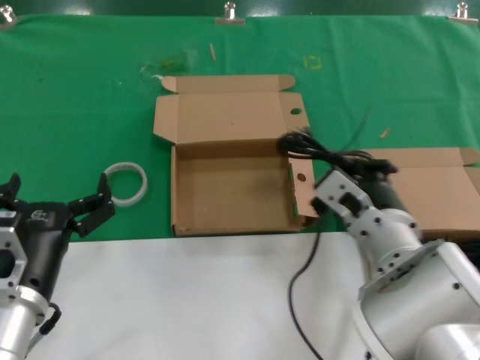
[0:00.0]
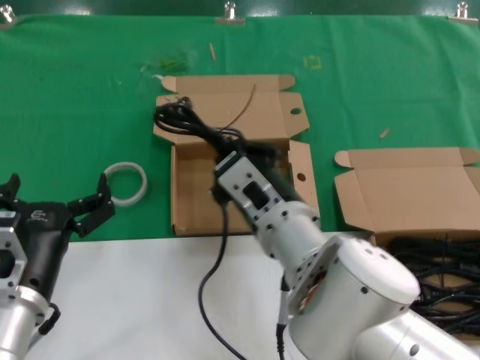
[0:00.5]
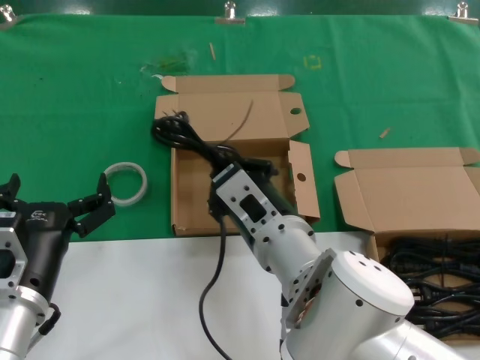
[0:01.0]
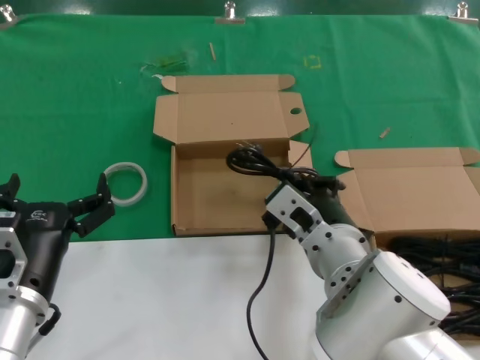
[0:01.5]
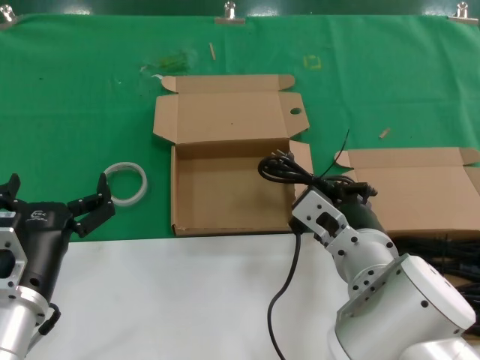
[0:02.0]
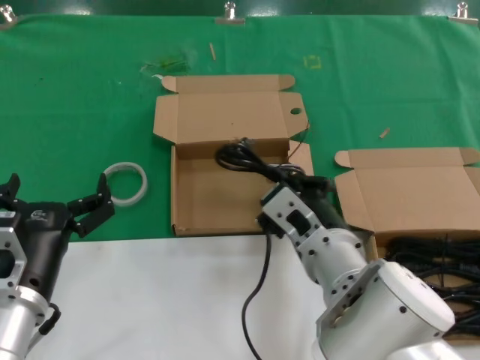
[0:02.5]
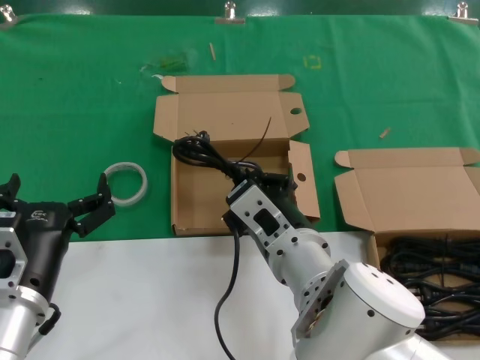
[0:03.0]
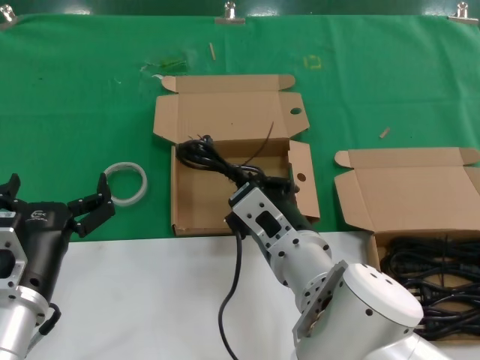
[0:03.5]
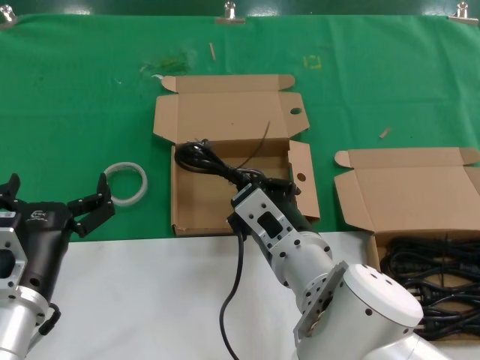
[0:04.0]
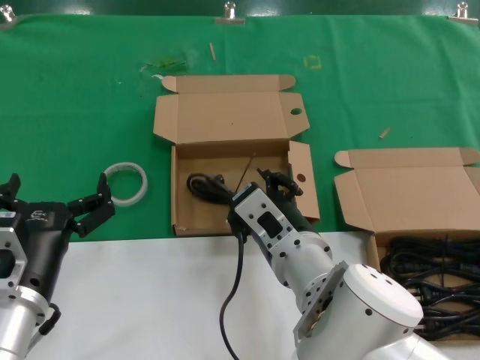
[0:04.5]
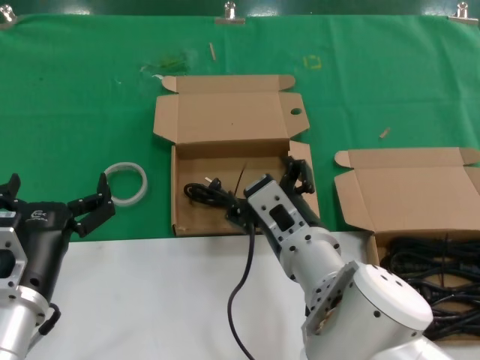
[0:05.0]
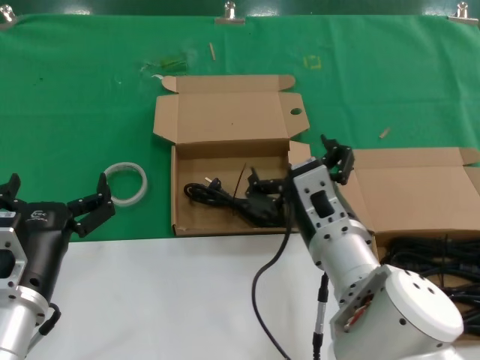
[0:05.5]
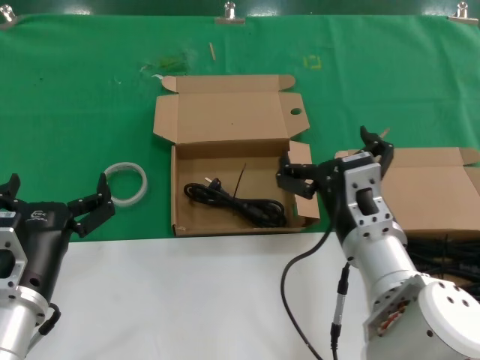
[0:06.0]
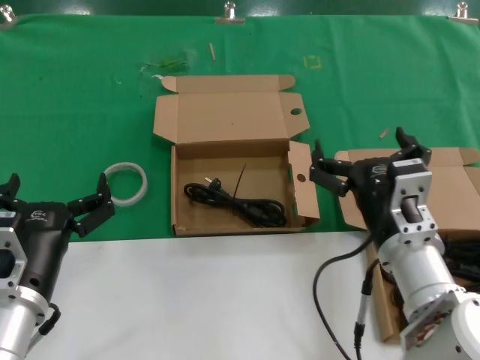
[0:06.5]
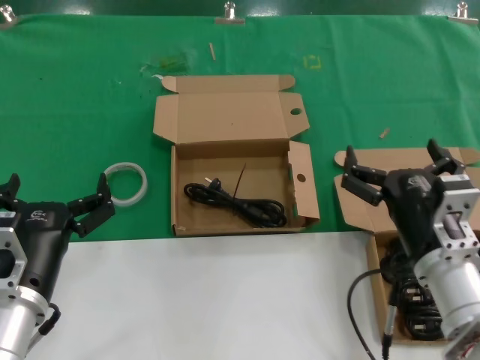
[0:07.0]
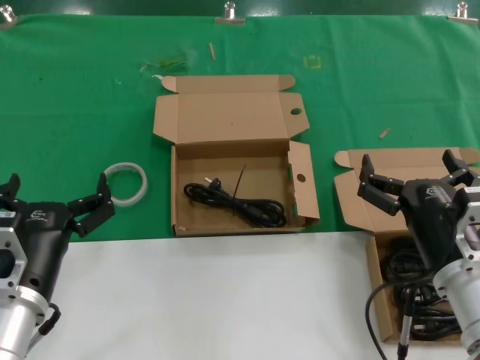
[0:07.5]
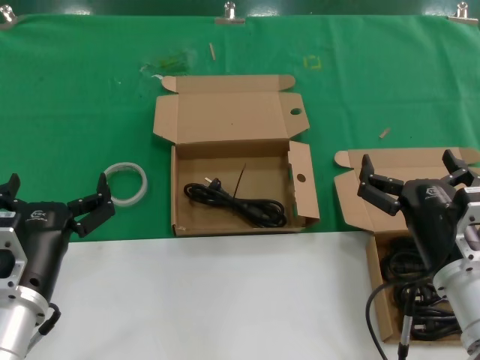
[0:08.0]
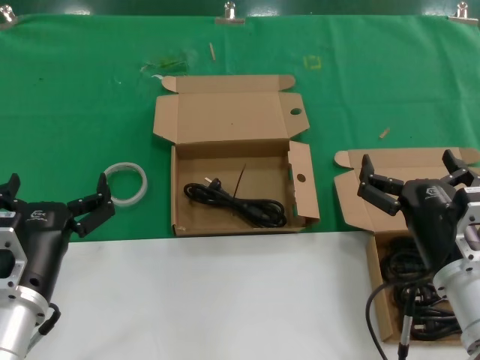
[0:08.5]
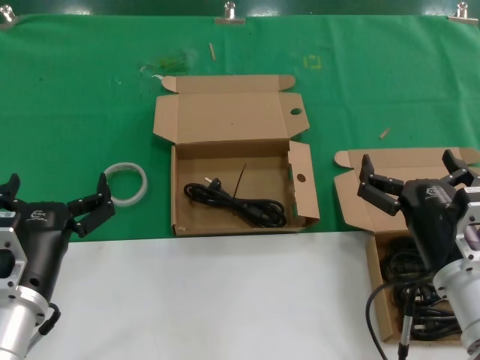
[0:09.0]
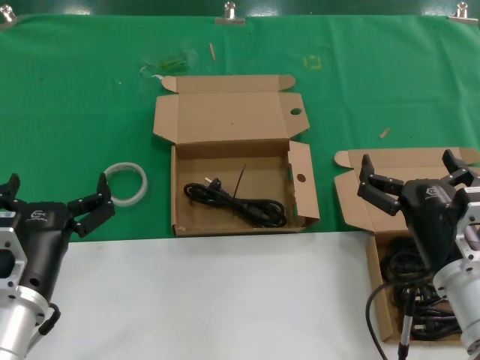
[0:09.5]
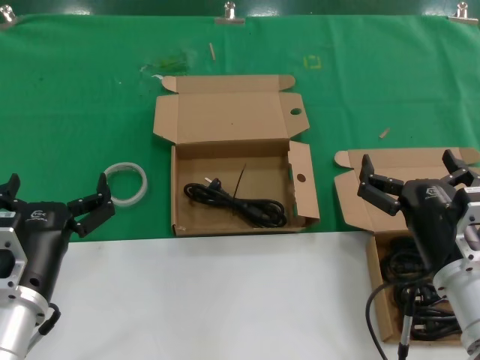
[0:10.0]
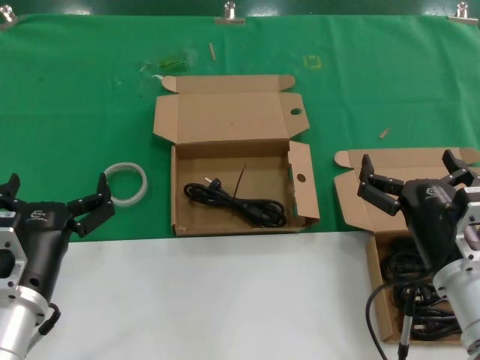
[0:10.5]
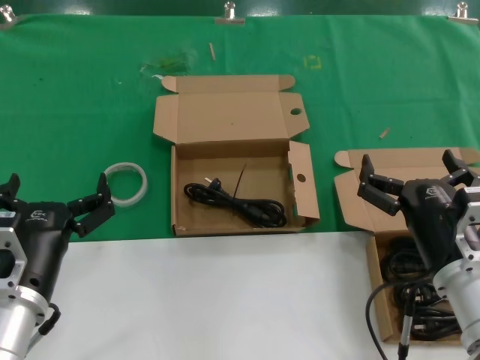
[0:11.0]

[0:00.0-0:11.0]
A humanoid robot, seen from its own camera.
Task of the whole recording: take the parts from the box containing them and put them into an empty box.
Step, 0:00.0 to 0:04.0: Place the data cable in the another box.
0:00.0 to 0:02.0: The right hand goes to the left and returns, some 10 cm each way.
0:02.0 to 0:03.5: The right hand is displaced to the left by about 5 cm.
0:03.5 to 0:05.5: The hands stay close to where they were, moving slightly.
0:05.5 to 0:07.5: The right hand is displaced to the right by about 15 cm.
0:07.5 to 0:11.0: Both hands stay put.

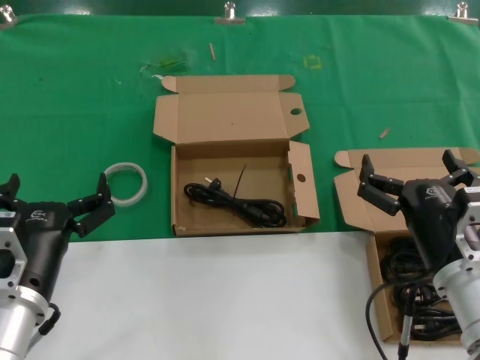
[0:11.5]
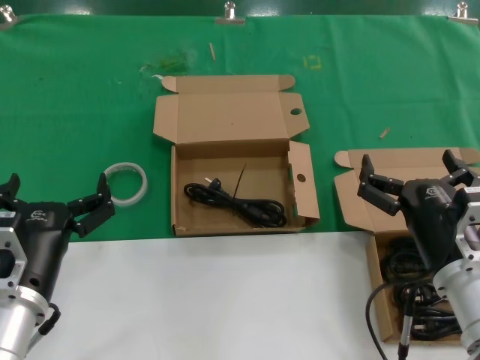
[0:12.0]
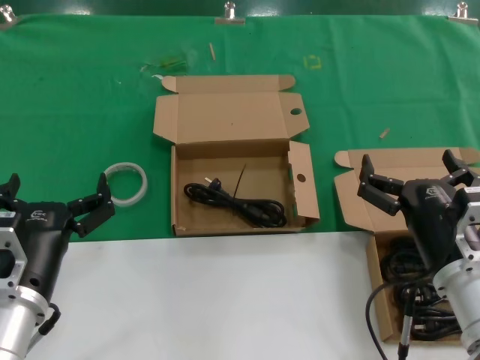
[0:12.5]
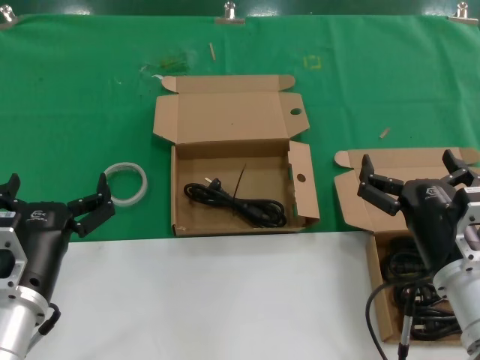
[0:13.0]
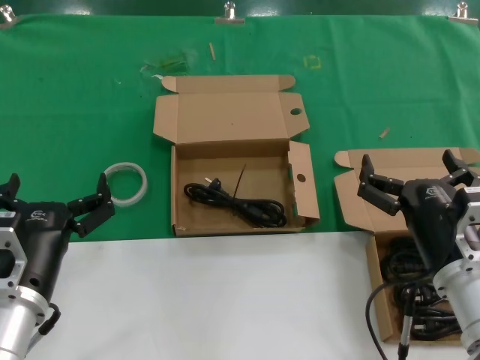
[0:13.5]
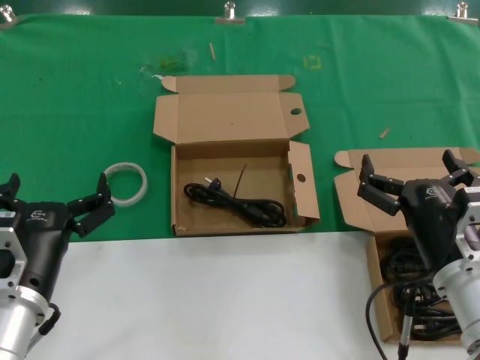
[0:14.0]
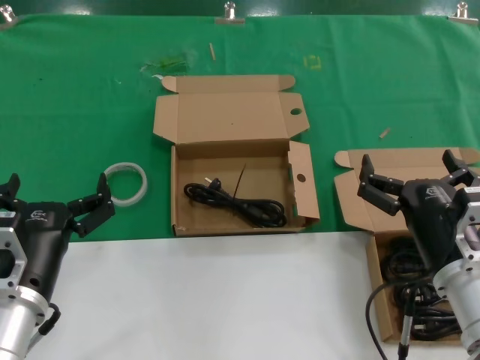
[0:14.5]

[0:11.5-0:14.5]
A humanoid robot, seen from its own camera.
Task of the whole recording: take the parts from the box containing them and put them into an empty box.
0:11.5 to 0:14.5: The two hands keep their place.

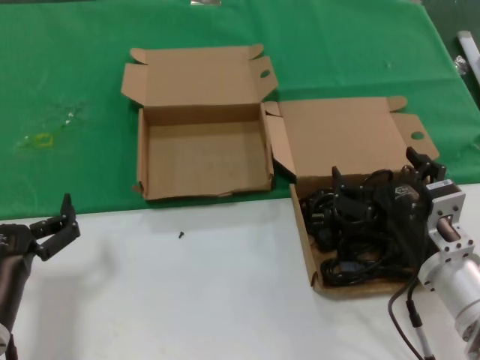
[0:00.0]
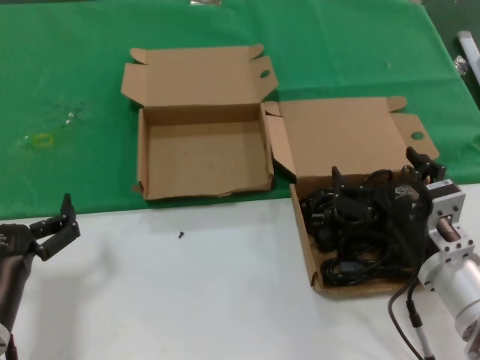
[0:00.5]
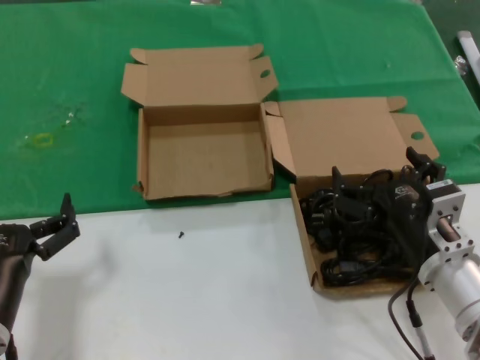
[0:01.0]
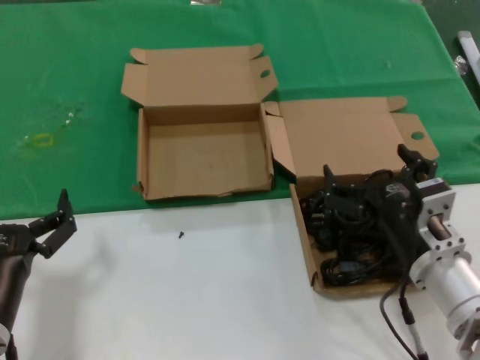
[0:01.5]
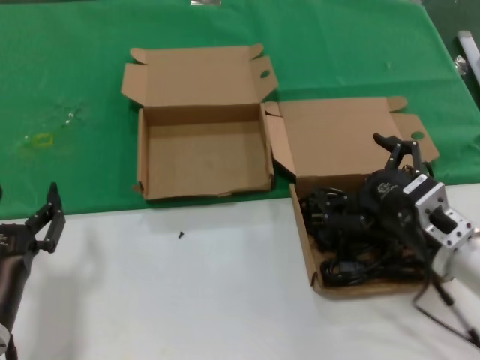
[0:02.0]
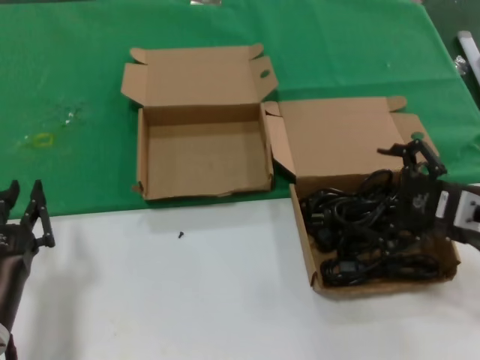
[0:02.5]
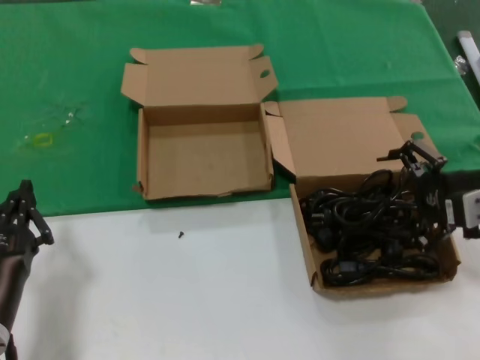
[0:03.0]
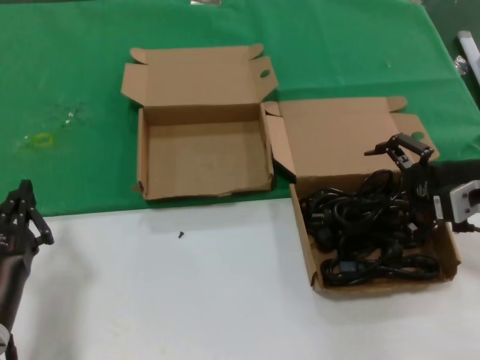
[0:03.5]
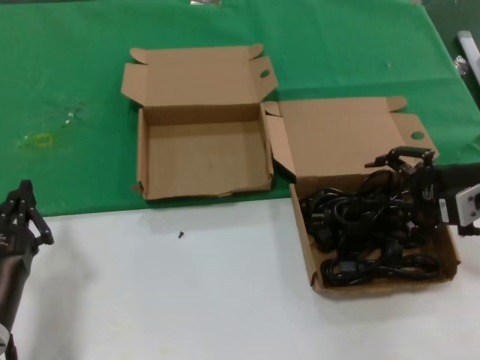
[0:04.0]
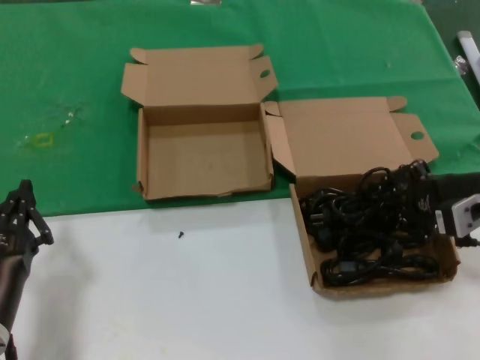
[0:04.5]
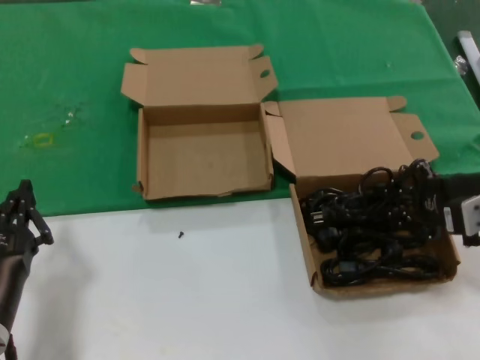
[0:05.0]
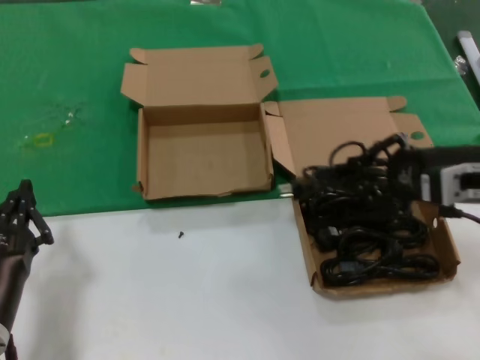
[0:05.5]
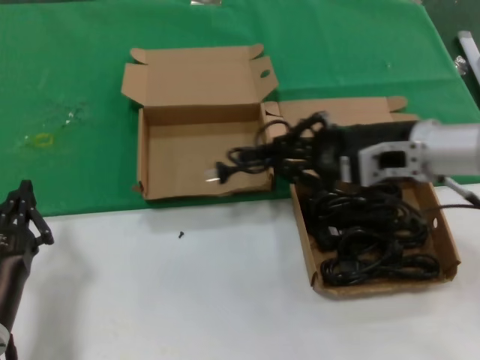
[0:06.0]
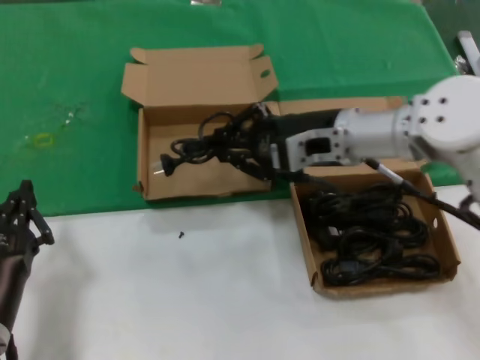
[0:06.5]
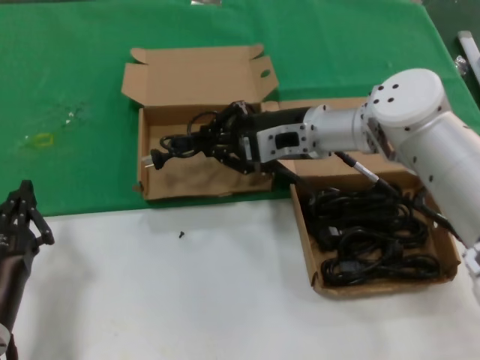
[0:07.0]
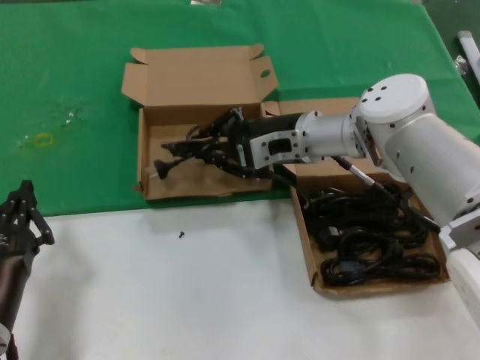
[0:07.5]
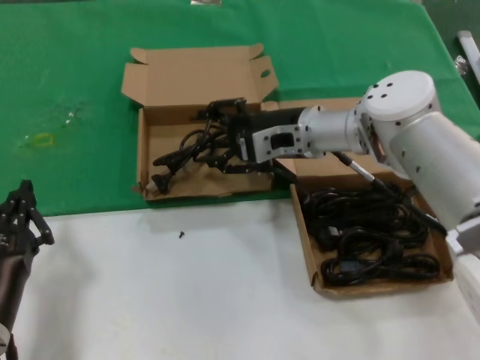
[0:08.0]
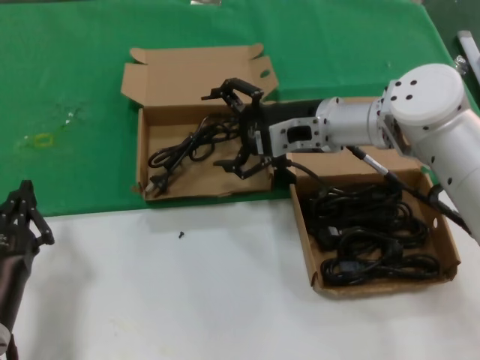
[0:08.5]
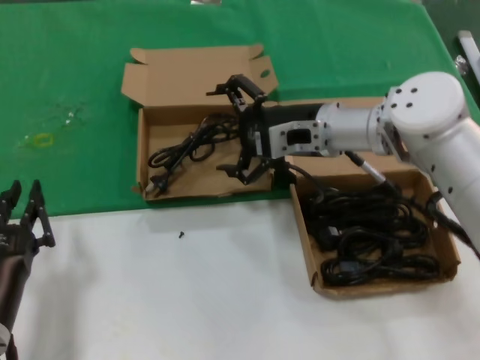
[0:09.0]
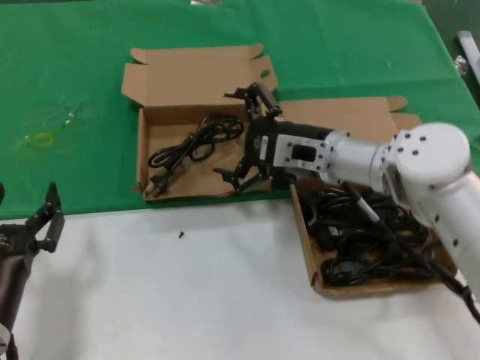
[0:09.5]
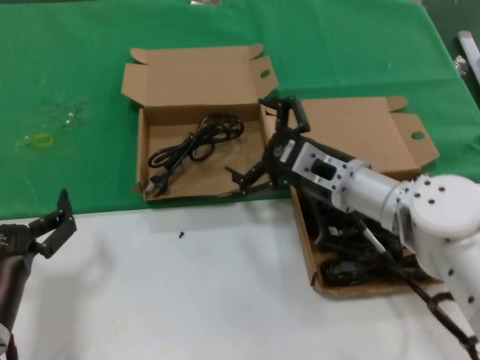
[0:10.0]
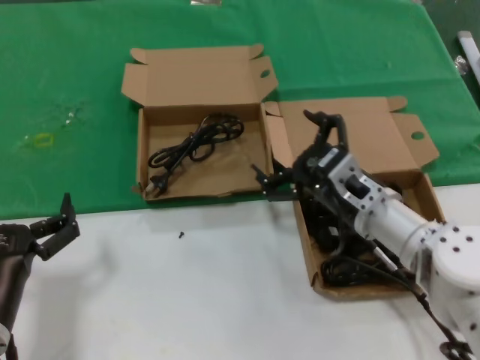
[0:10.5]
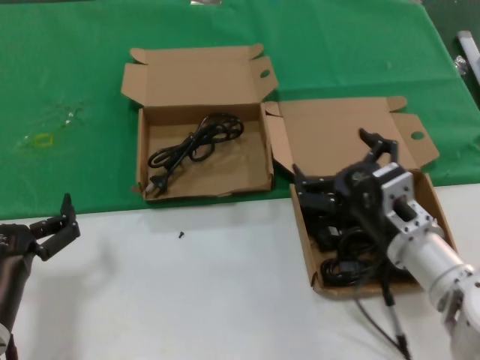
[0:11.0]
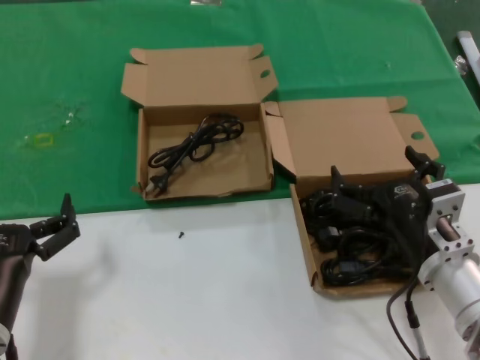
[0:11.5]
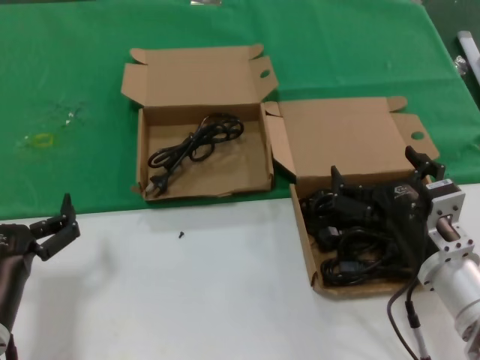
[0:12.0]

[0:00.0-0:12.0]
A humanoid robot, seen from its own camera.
Task of the whole recording: take the parts from the box containing them and put them into an empty box.
Step, 0:00.0 to 0:04.5: Grasp the data cable.
Step, 0:05.0 to 0:07.5: Place the data cable in the another box.
0:02.0 to 0:04.0: The right hand shifts roughly 15 cm to the right, upward and forward.
0:04.0 to 0:06.0: The right hand moves to the left and upward, roughly 15 cm.
0:06.0 to 0:08.0: The right hand shifts approximately 15 cm forward and to the left.
0:08.0 to 0:10.0: The right hand travels backward and downward by about 10 cm.
0:10.0 to 0:12.0: The right hand travels backward by roughly 15 cm.
